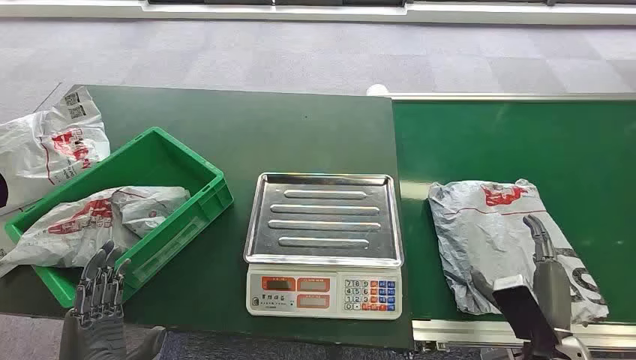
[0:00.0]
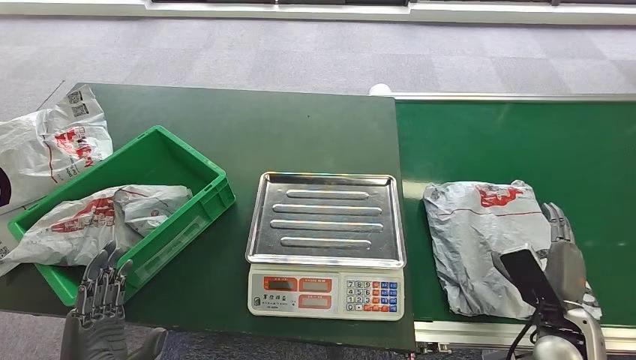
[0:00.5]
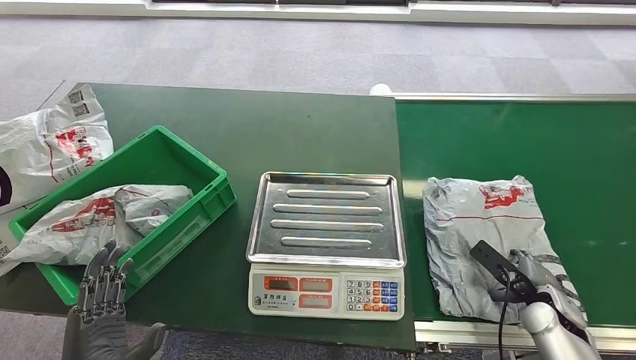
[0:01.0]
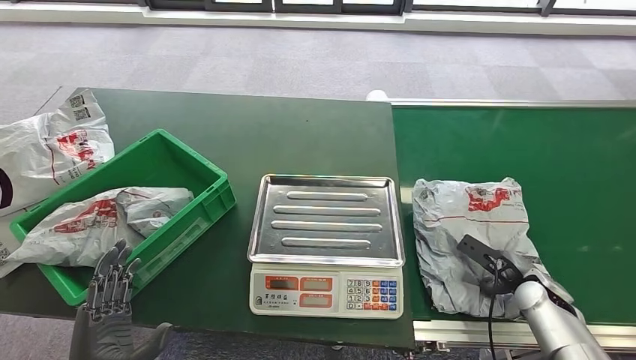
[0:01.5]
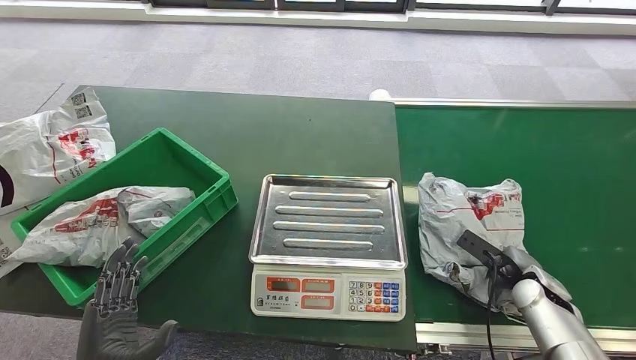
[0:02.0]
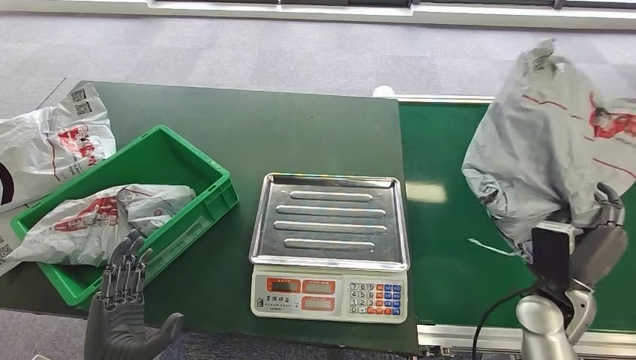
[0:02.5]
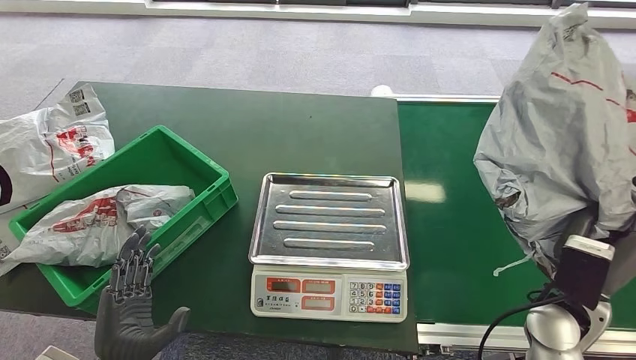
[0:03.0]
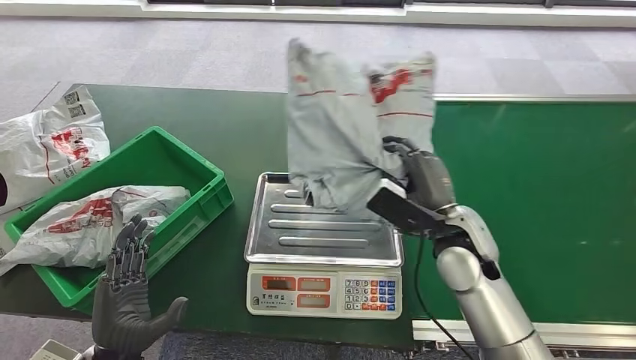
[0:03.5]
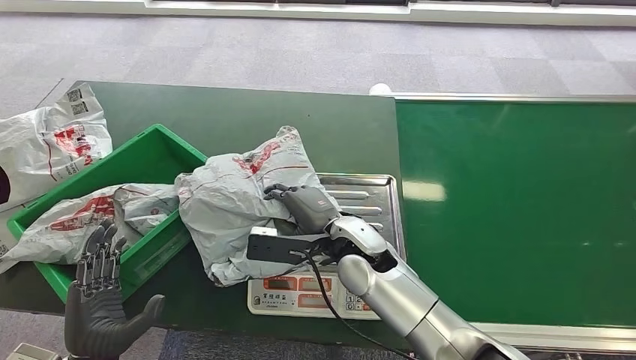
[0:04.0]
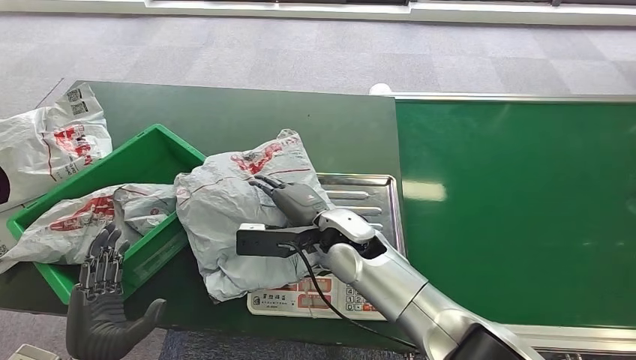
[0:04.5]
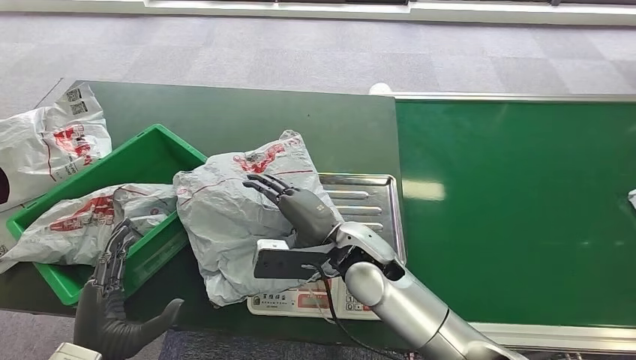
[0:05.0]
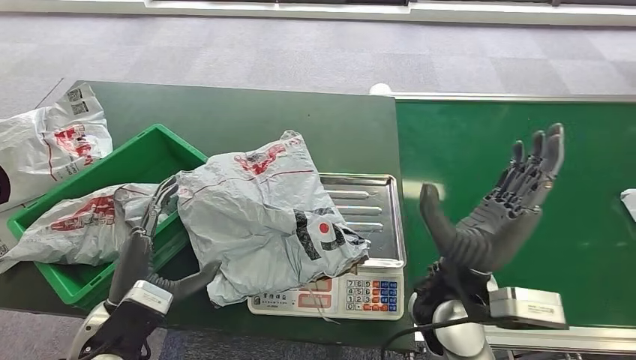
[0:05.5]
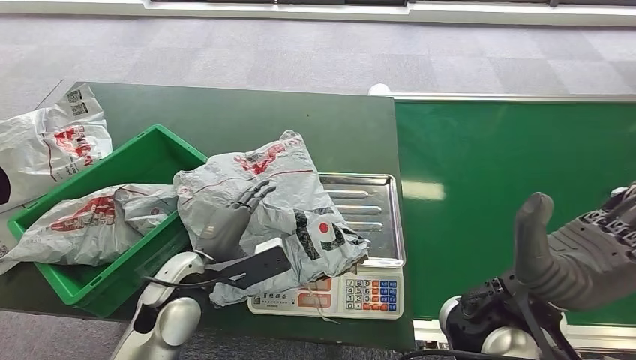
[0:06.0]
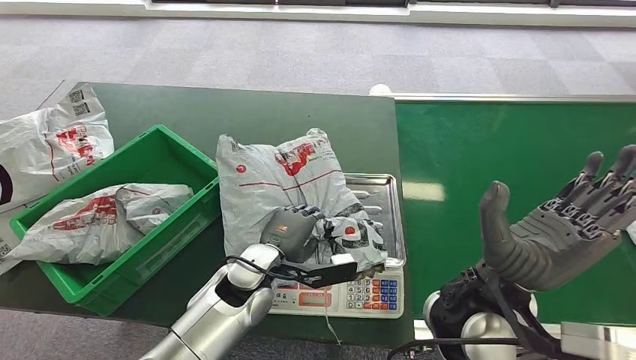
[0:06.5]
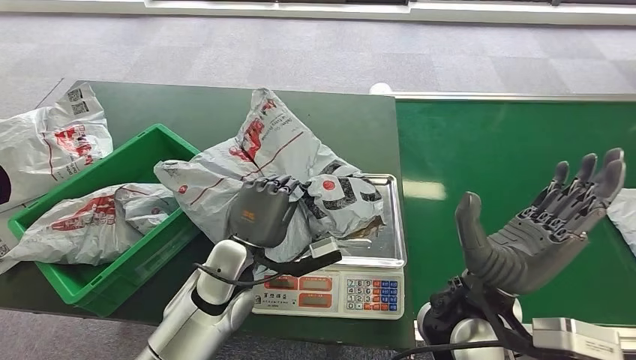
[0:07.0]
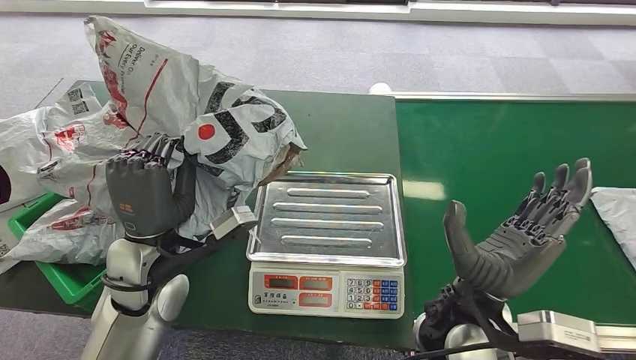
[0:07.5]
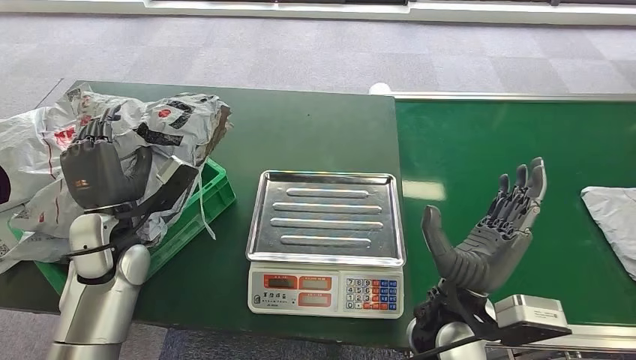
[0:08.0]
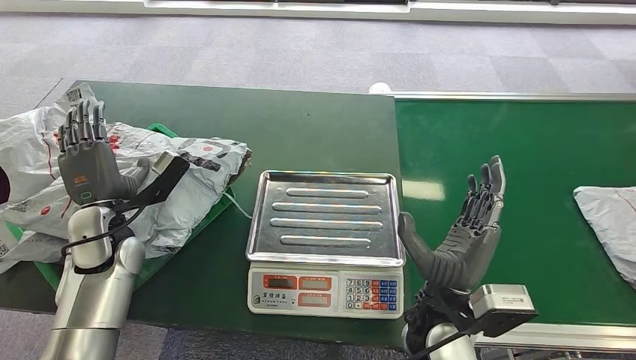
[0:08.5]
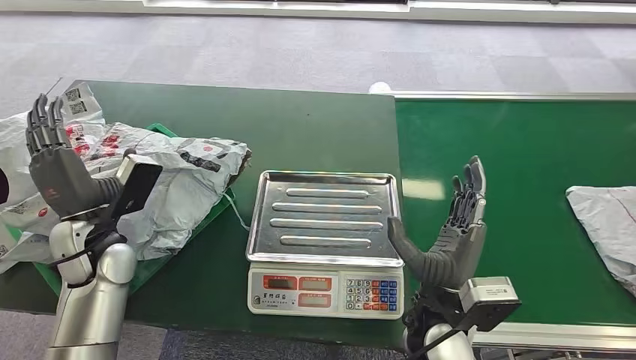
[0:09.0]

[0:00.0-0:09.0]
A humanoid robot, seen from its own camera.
Step, 0:00.0 to 0:02.5: Pick up the package from the conveyor belt.
Step, 0:03.0 to 0:05.0: Place the package onto the inbound machine.
Step, 0:05.5 to 0:07.0: Pick up the package from the inbound machine.
Step, 0:07.5 to 0:08.5: Place the package into the parcel locker.

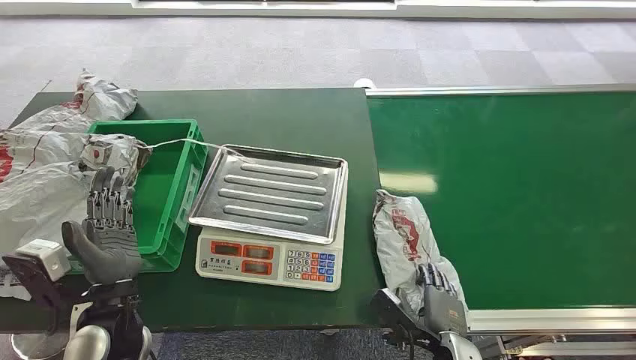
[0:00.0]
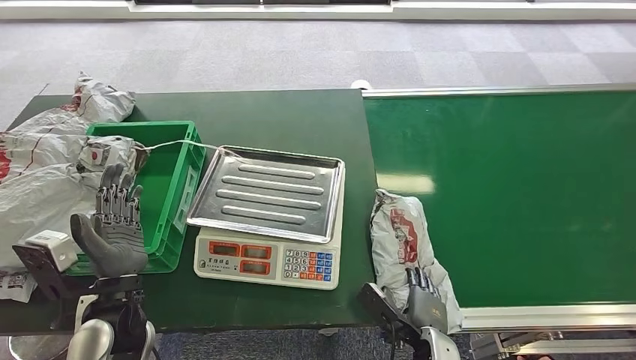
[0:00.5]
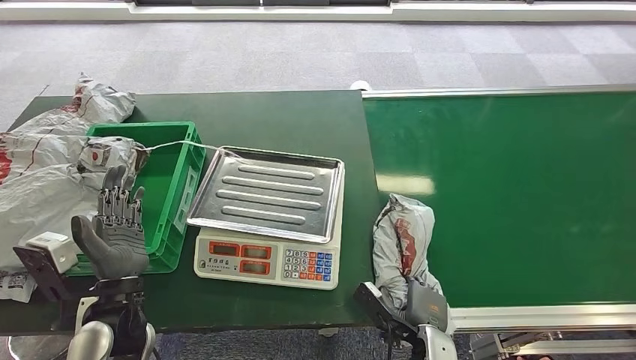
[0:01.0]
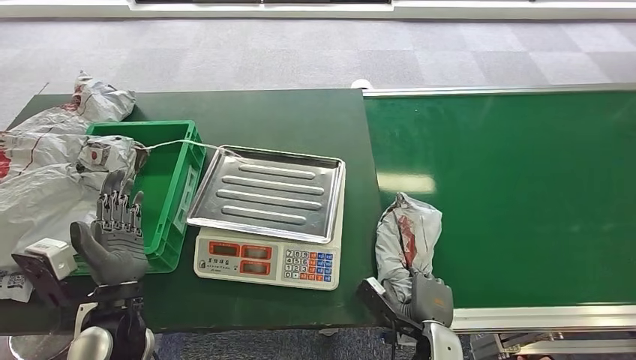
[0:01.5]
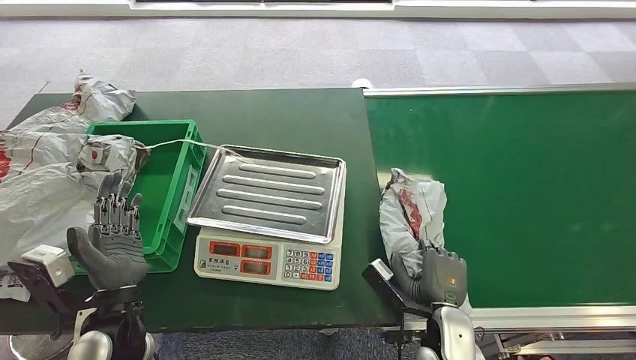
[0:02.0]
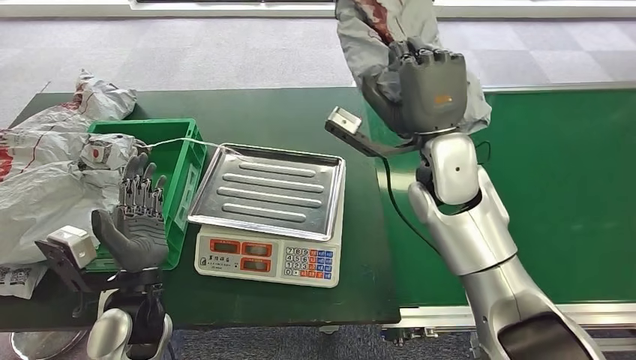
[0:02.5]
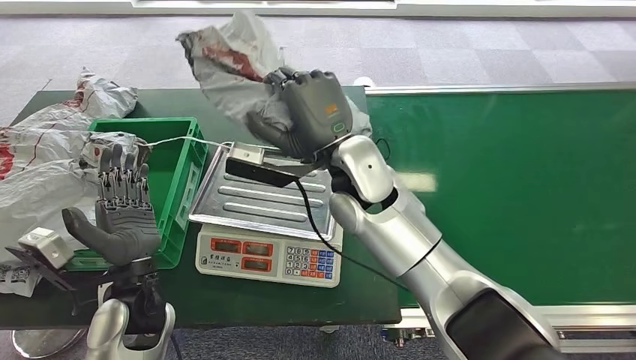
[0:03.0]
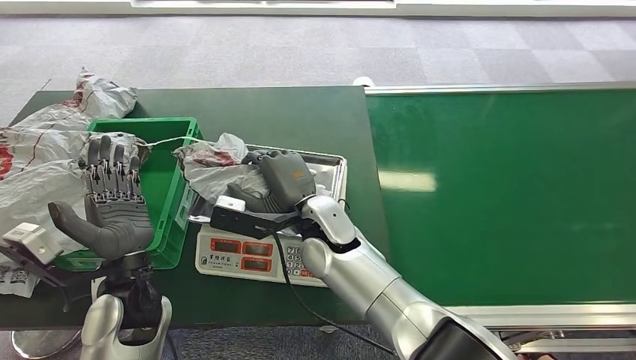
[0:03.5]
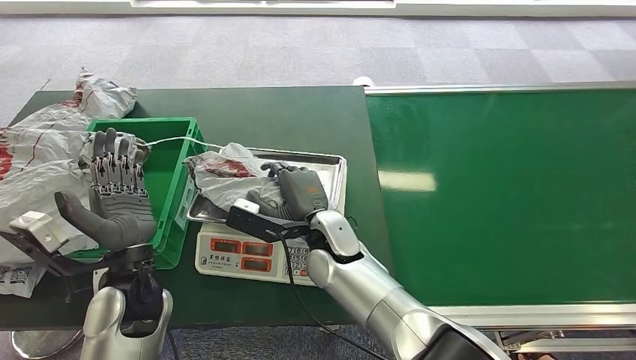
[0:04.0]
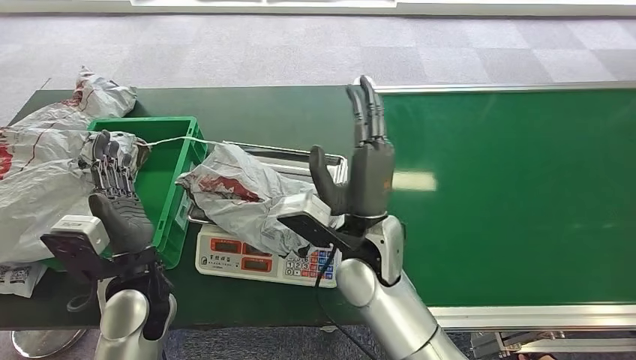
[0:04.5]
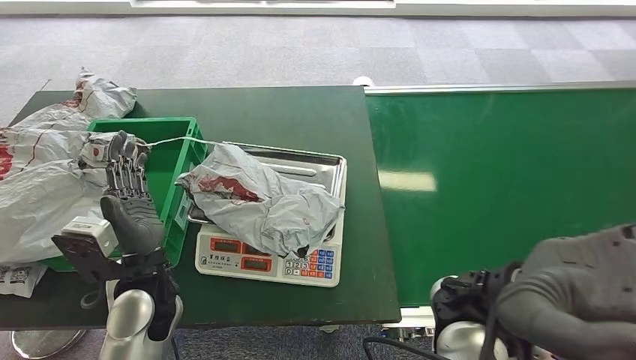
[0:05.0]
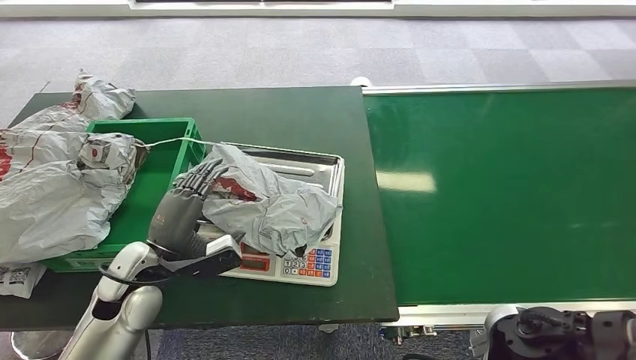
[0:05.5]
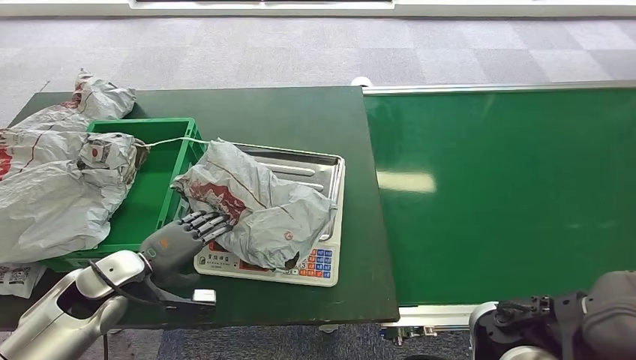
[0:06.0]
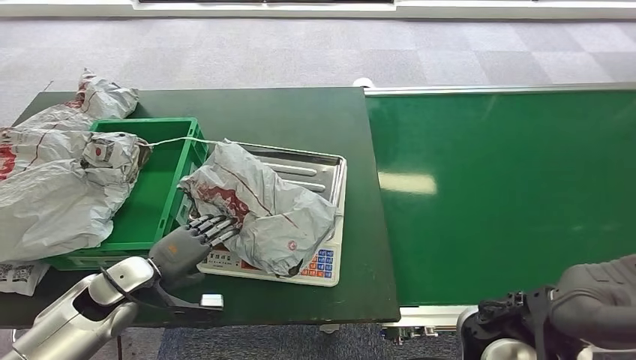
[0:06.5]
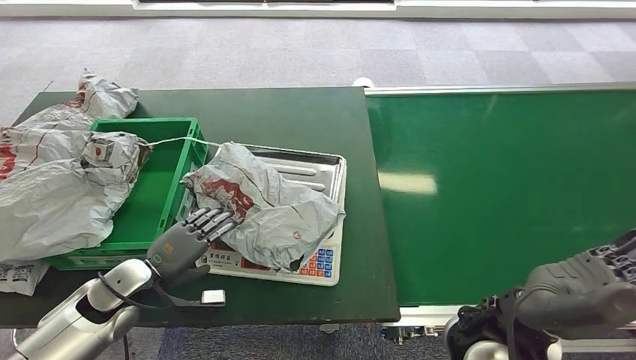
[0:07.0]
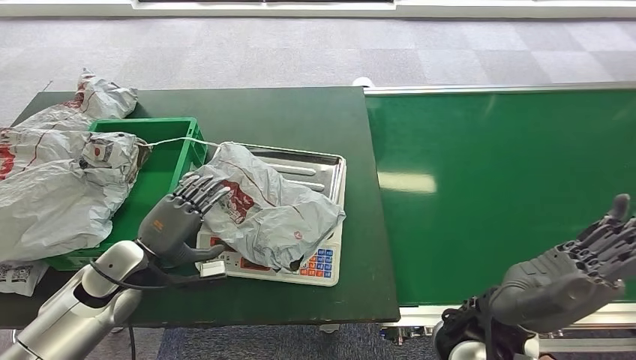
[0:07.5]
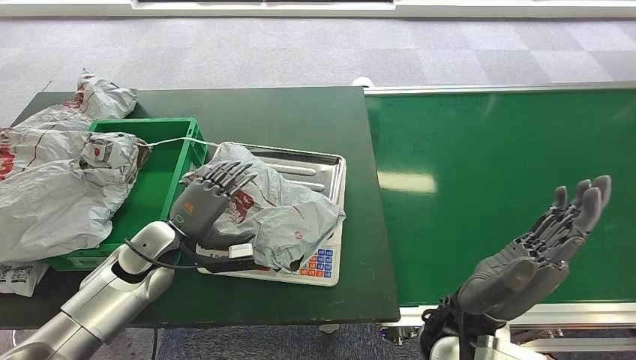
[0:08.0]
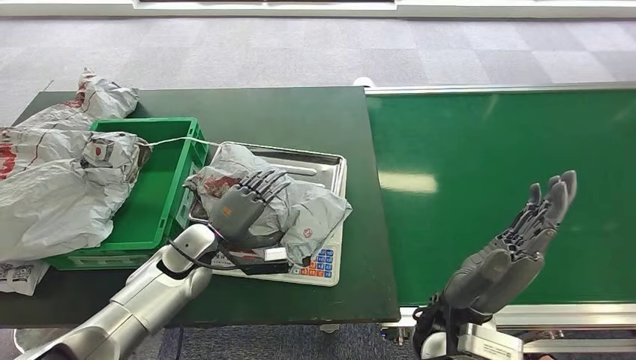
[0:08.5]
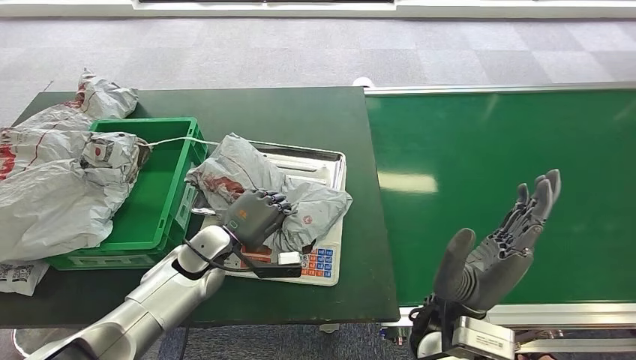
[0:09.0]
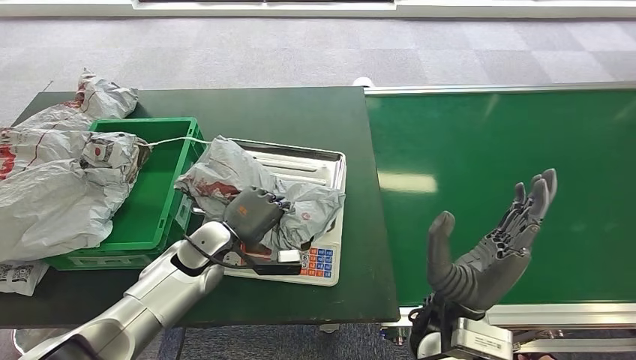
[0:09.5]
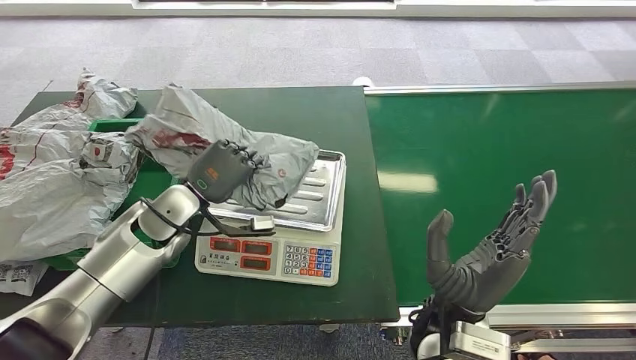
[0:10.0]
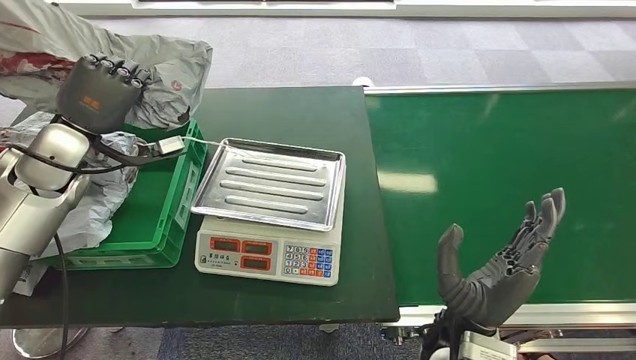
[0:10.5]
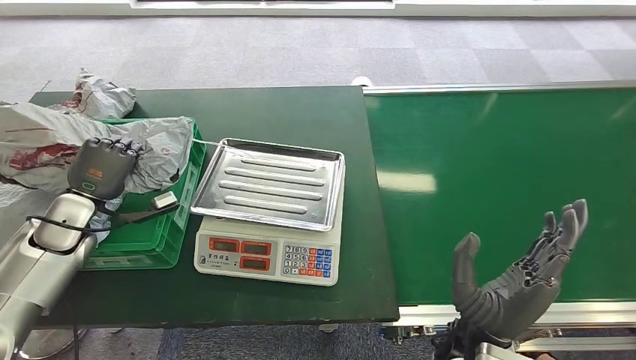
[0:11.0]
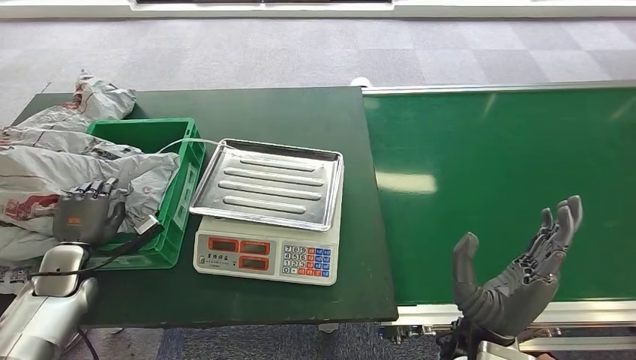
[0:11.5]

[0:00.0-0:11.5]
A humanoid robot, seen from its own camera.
Step, 0:00.0 to 0:02.0: Pick up the package from the conveyor belt.
Step, 0:02.5 to 0:05.5: Place the package onto the inbound machine.
Step, 0:06.0 to 0:10.0: Pick up the package from the inbound machine.
Step, 0:10.5 to 0:11.5: Place the package into the parcel locker.
0:06.0 to 0:07.5: The right hand is displaced downward by approximately 5 cm.
0:07.5 to 0:09.5: The left hand is displaced to the right by roughly 15 cm.
